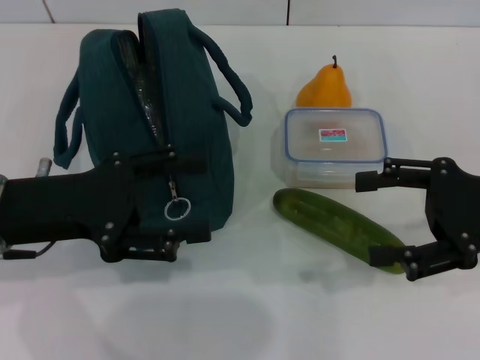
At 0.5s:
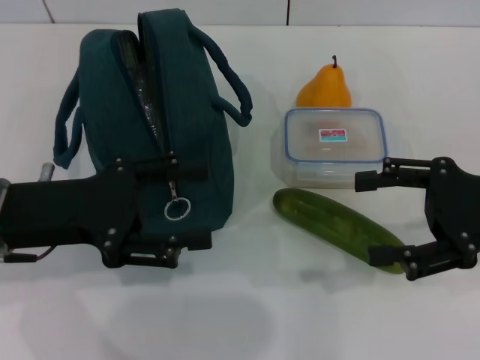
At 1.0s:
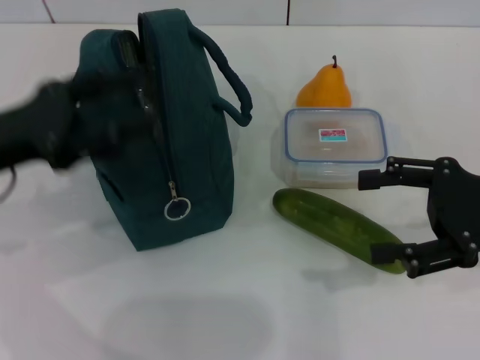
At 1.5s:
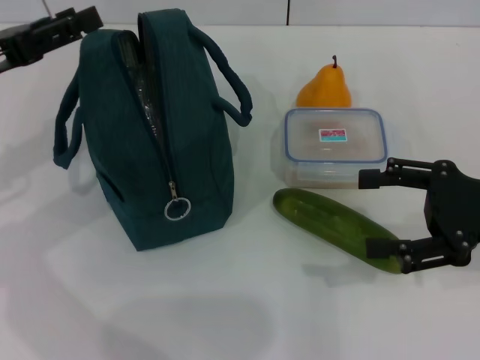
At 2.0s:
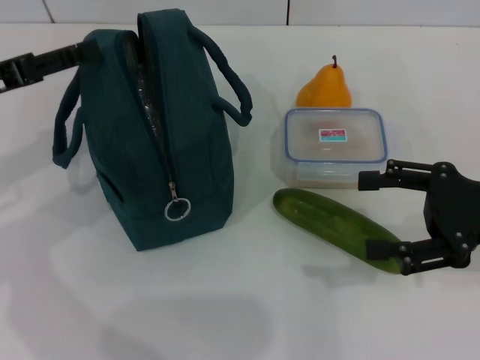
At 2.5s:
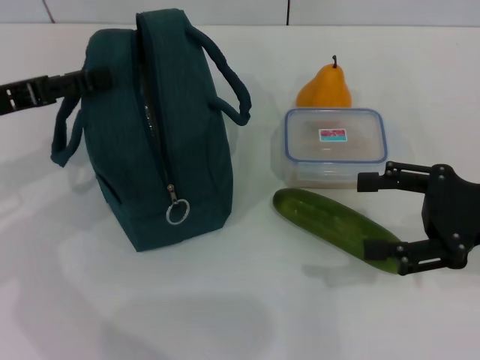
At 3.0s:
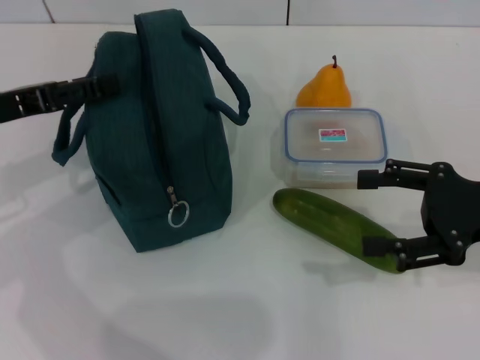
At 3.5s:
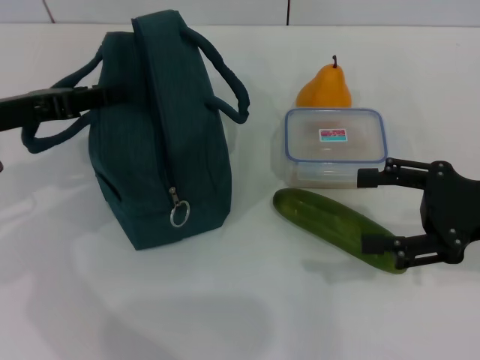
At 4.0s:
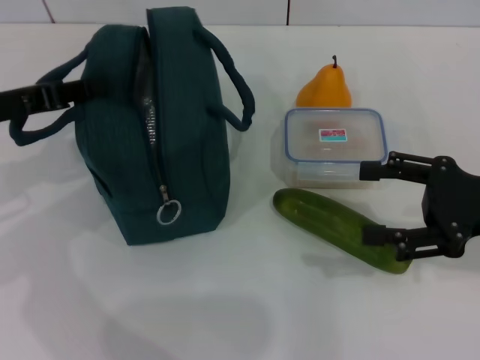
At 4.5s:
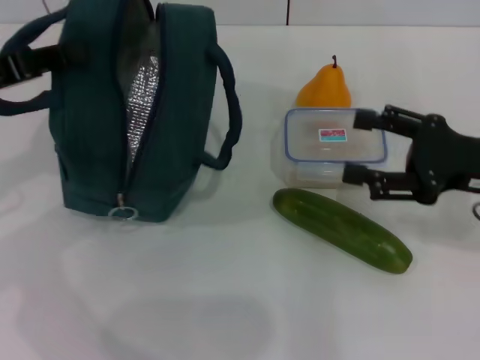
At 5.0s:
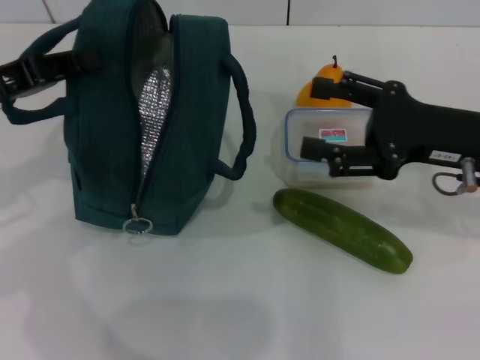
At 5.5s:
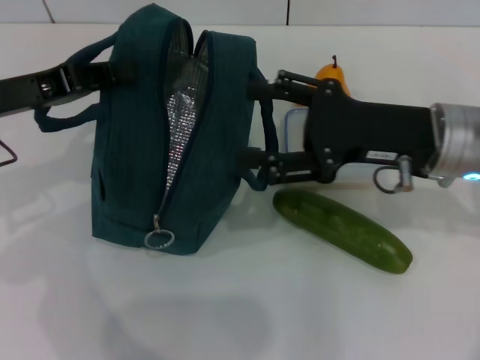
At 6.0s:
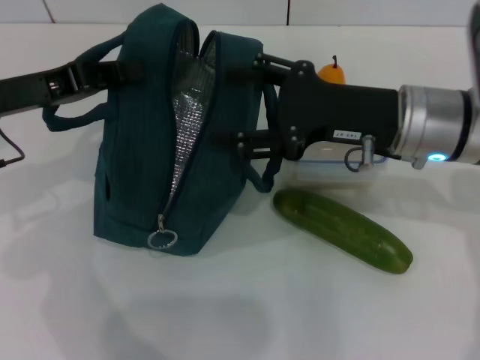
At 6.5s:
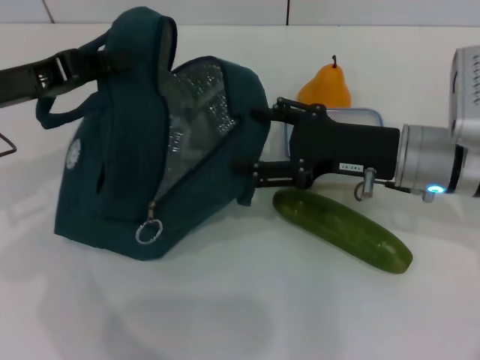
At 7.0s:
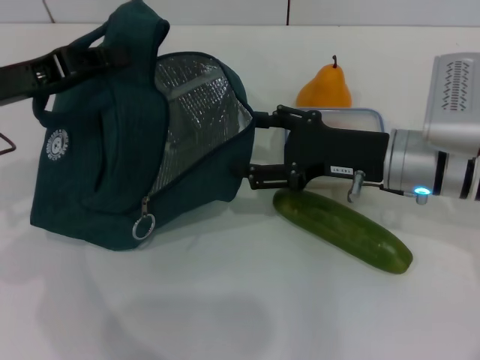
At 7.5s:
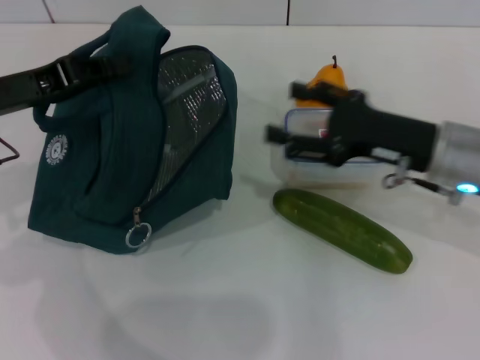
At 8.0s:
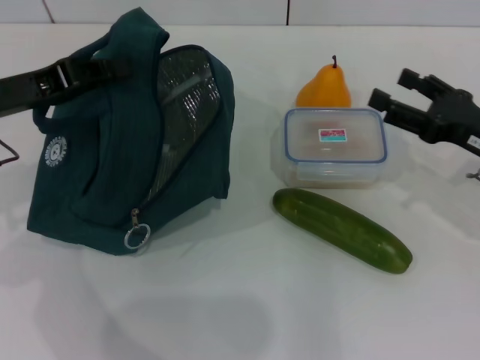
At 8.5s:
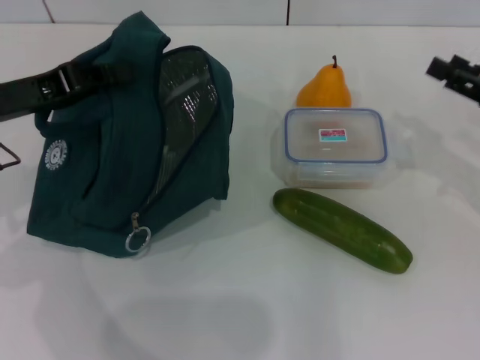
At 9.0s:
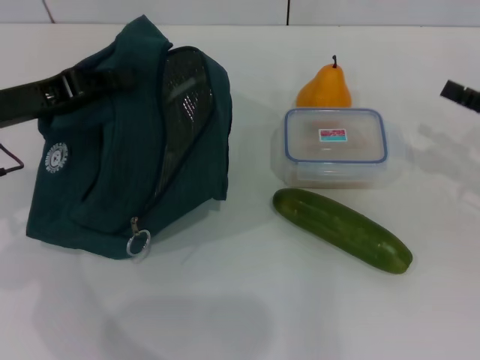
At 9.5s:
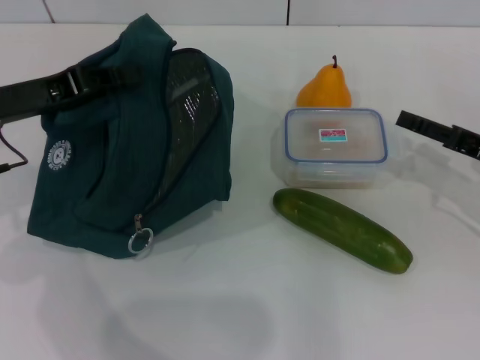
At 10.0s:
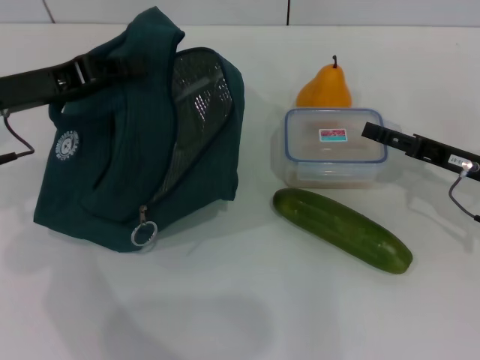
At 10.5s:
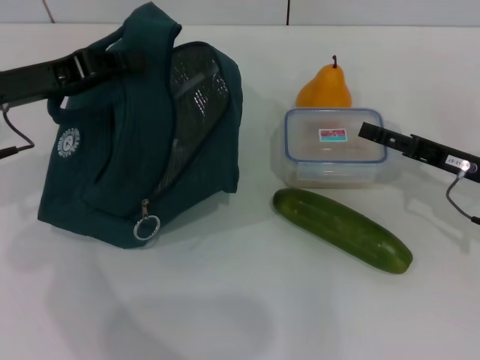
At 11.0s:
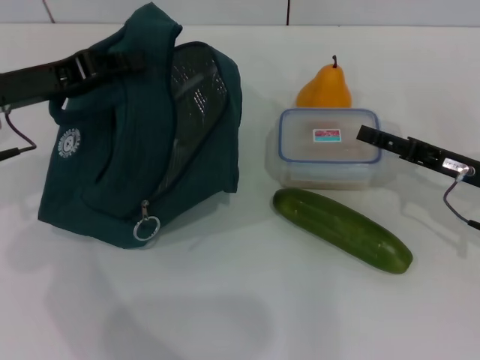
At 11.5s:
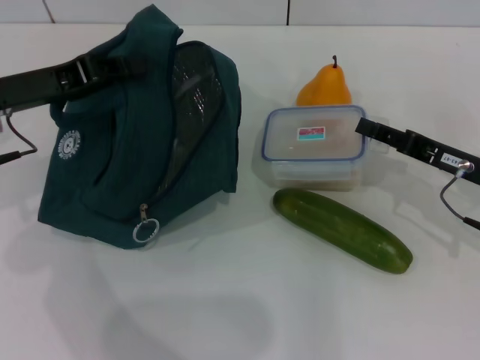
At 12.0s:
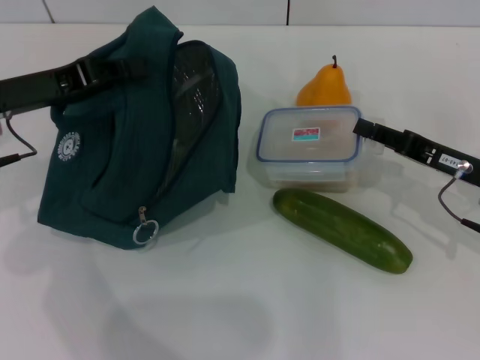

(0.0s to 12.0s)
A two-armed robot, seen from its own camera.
Step, 0.0s - 7.5s: Hold the lunch bag with your left hand.
0.0s - 2.0s: The left gripper shifts roughly 10 cm to the left and forward.
2.0s - 4.0s: The left gripper closes its fingers.
4.0s - 6.0s: The right gripper heads to the left and forward, covering approximately 15 cm.
6.0s - 8.0s: The right gripper heads to the right and downward, covering about 15 cm.
10.0s - 12.0s: The right gripper closes up.

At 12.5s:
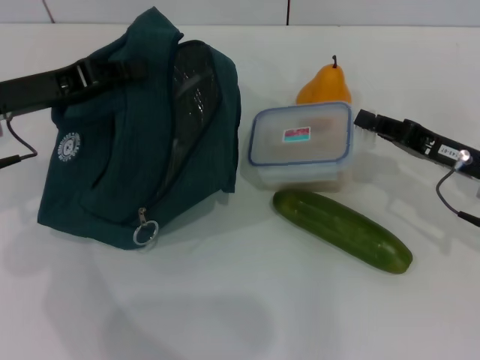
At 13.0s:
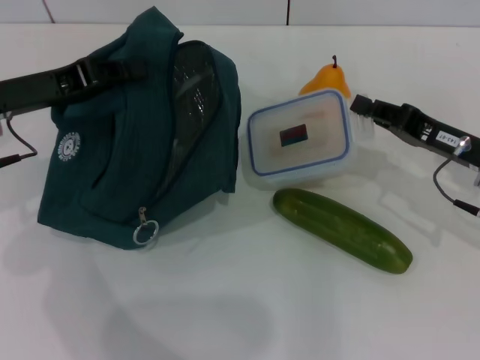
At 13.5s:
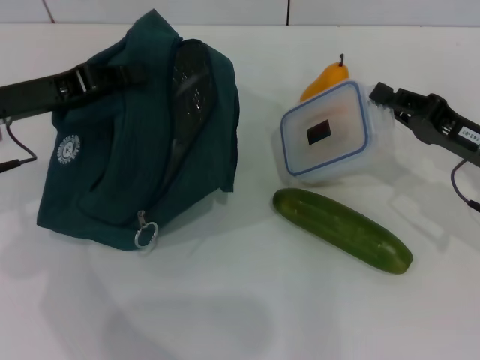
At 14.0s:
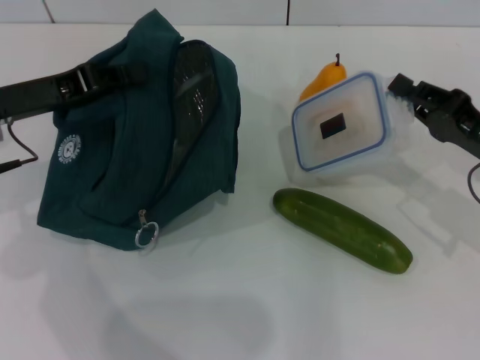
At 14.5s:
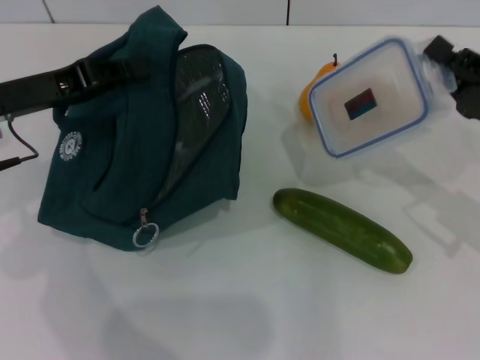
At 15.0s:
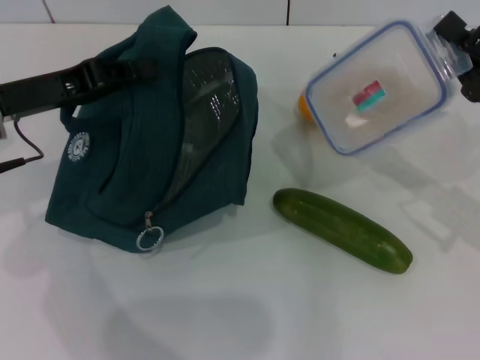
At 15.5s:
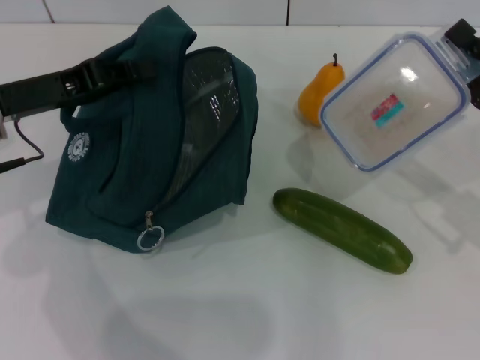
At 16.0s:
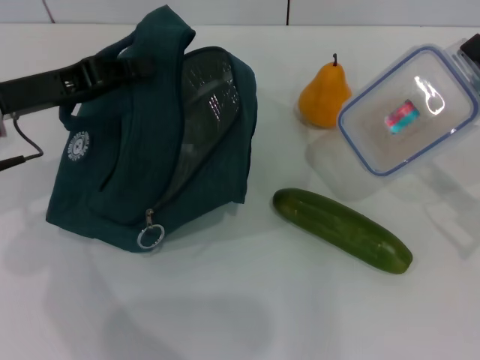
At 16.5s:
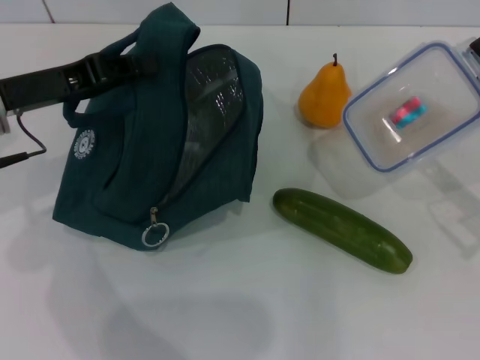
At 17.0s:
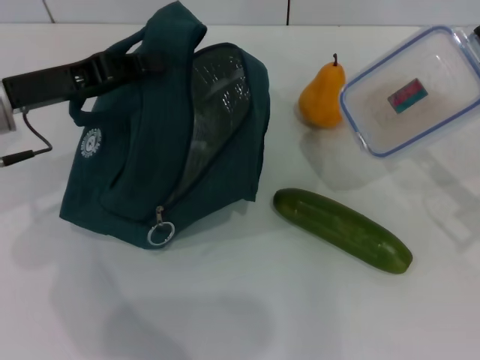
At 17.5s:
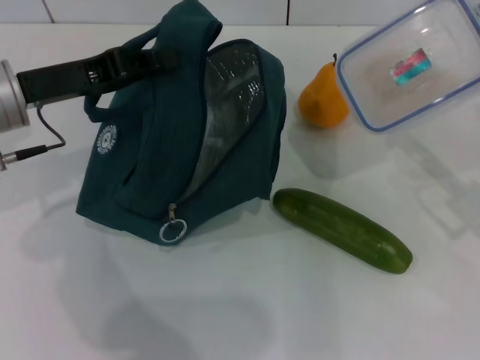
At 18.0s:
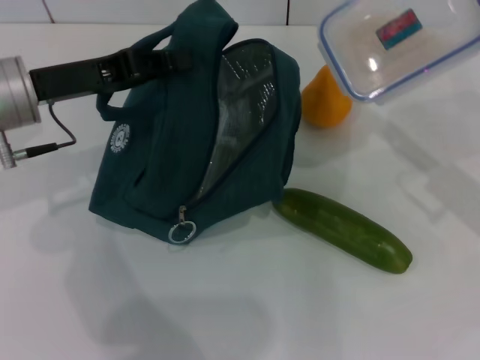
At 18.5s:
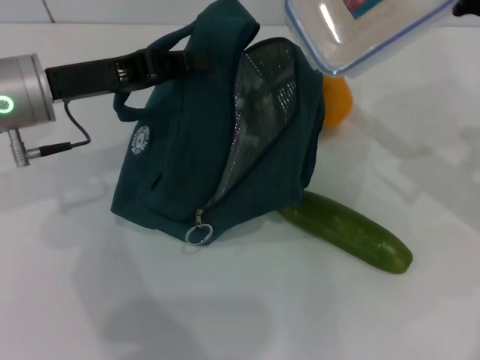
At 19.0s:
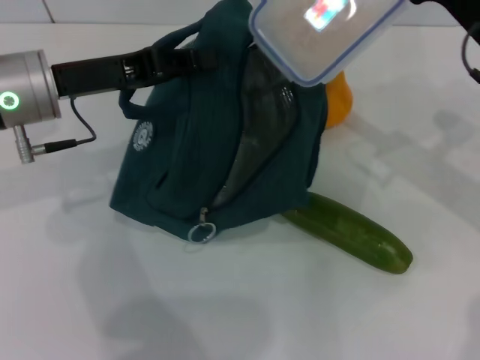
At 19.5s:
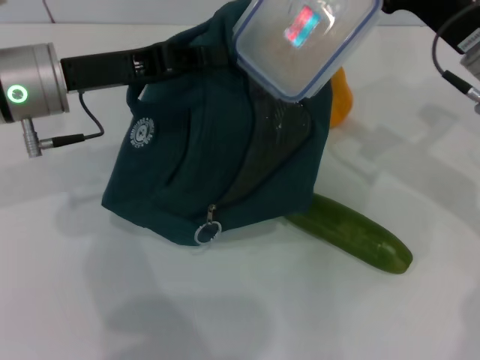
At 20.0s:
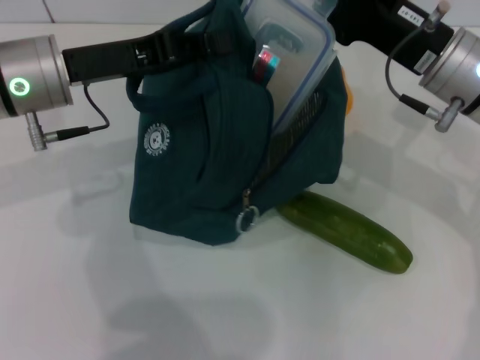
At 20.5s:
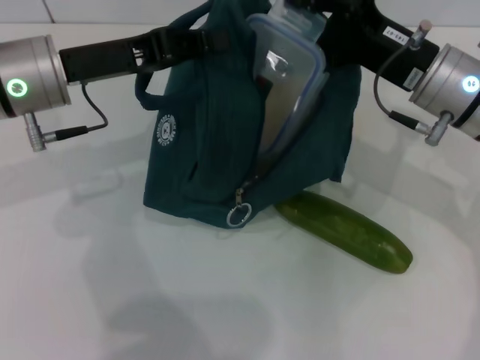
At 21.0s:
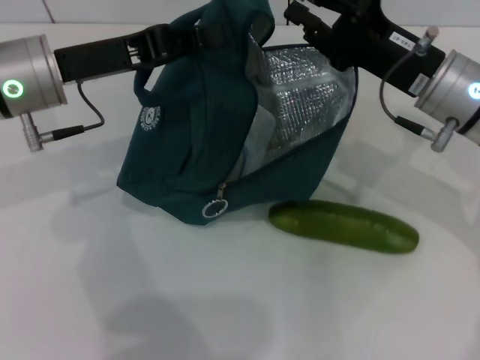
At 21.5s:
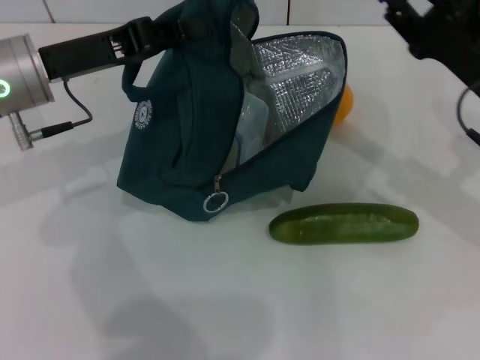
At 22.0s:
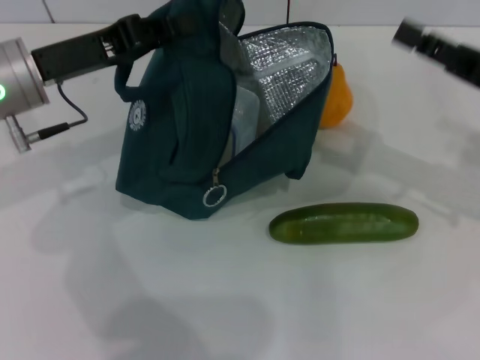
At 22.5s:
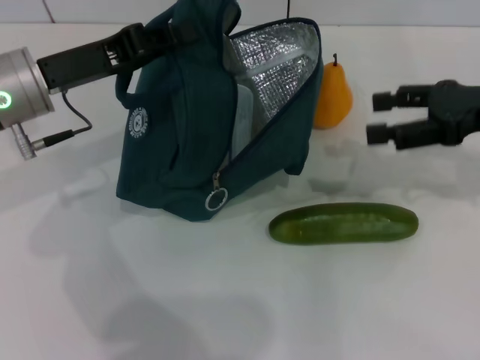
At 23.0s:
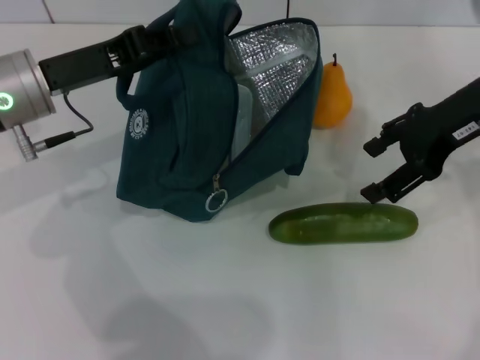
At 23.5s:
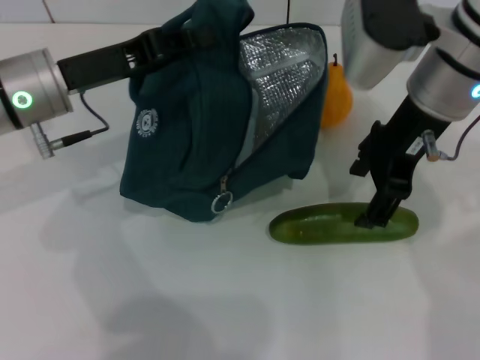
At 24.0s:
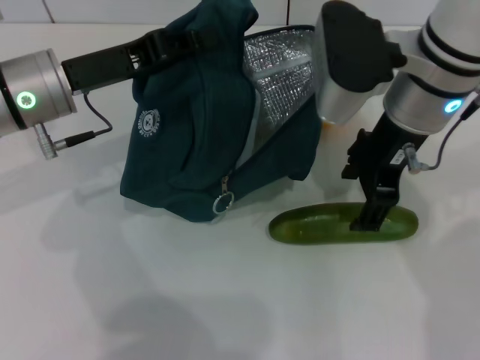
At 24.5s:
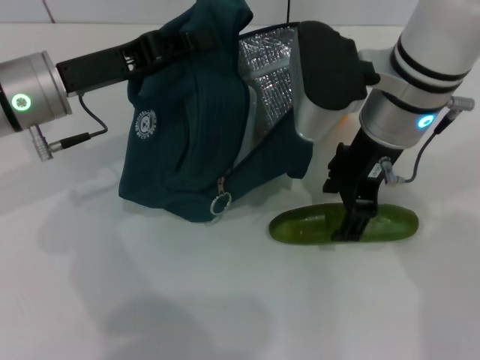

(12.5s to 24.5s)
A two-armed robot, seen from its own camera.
Step, 13.0s - 20.5s: Place the lunch box into the lunch bag with your right hand.
12.5s - 14.5s: The right gripper changes place by roughly 5 cm.
14.5s - 16.5s: The grippers stay close to where they were, moving slightly.
16.5s - 18.5s: The right gripper is displaced upward, forward and to the left by some 10 cm.
18.5s - 20.5s: The right gripper shifts about 10 cm to the left.
20.5s - 22.5s: The right gripper goes about 10 cm to the right, and opens its fingers.
22.5s - 24.5s: The right gripper moves to the left, about 20 cm.

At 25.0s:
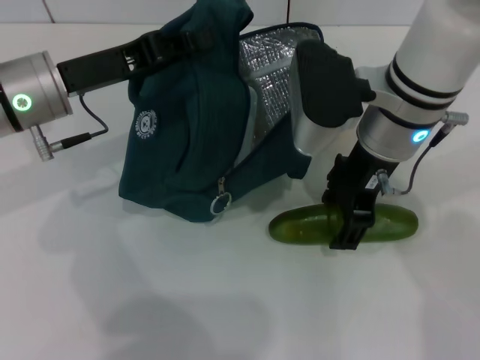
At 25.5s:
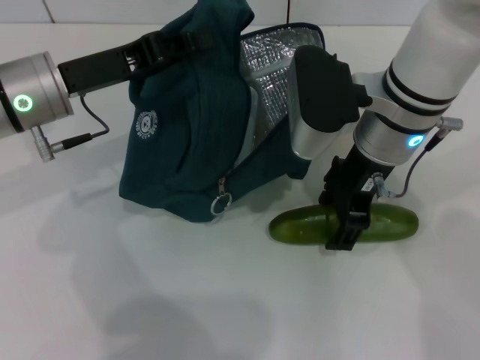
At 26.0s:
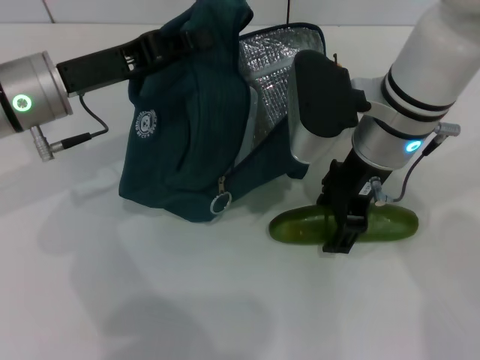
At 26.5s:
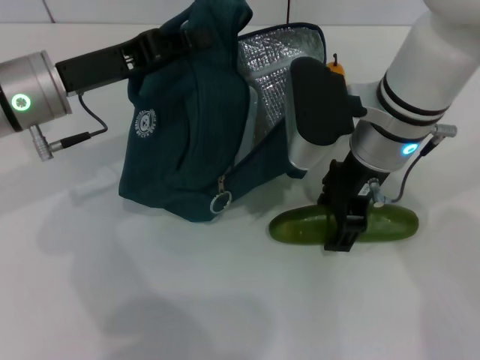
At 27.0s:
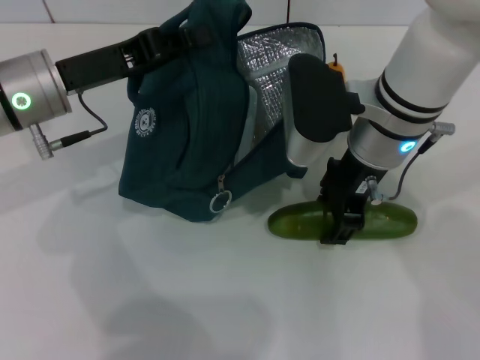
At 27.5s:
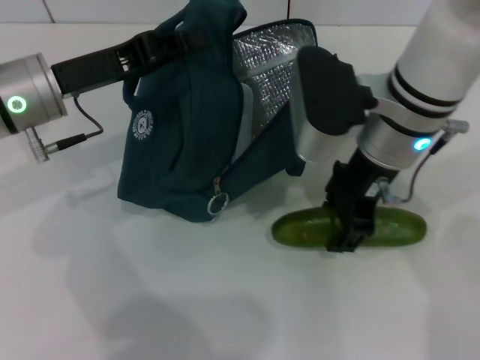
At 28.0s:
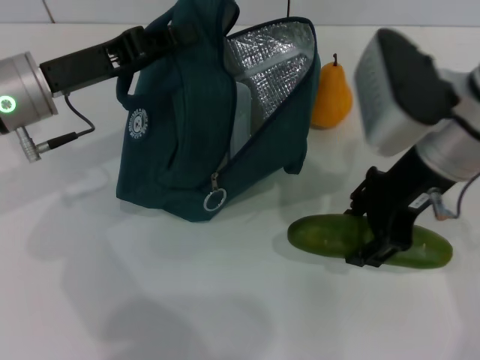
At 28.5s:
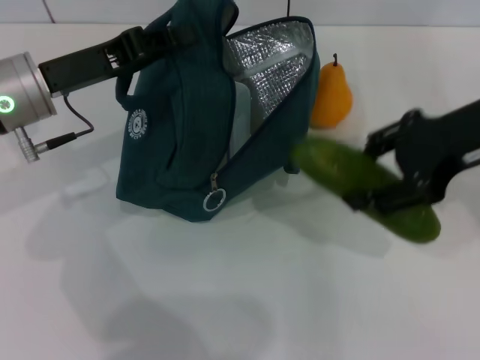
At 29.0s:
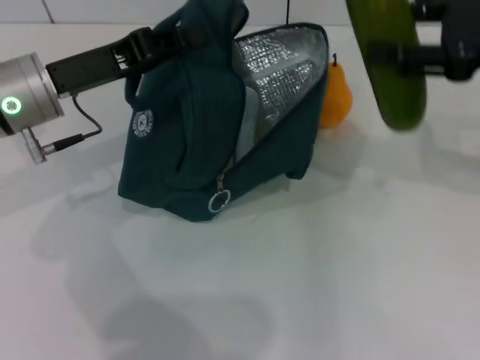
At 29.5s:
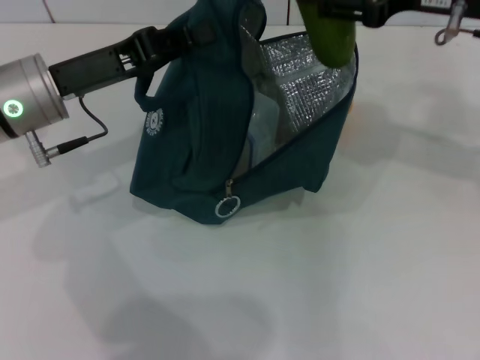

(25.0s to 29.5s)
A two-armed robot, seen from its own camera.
25.0s - 27.0s: The grippers move only a little.
27.0s - 29.5s: The right gripper travels to the right and upward by roughly 15 cm.
